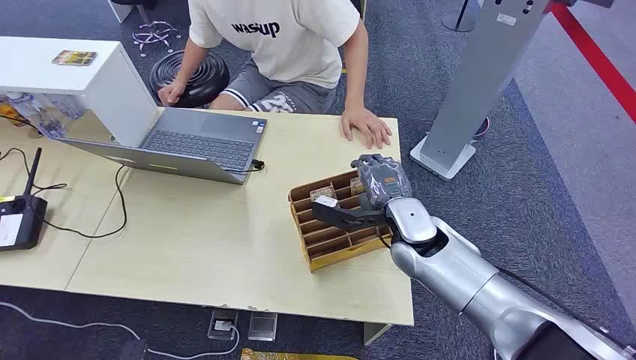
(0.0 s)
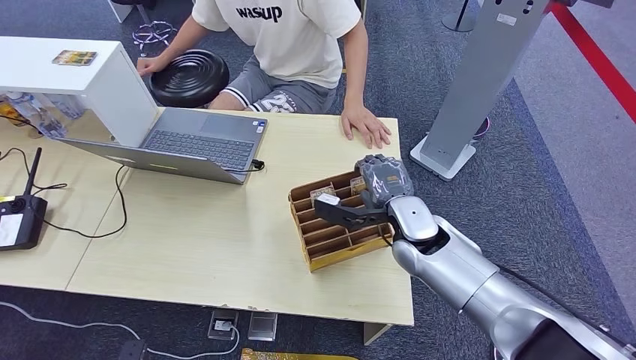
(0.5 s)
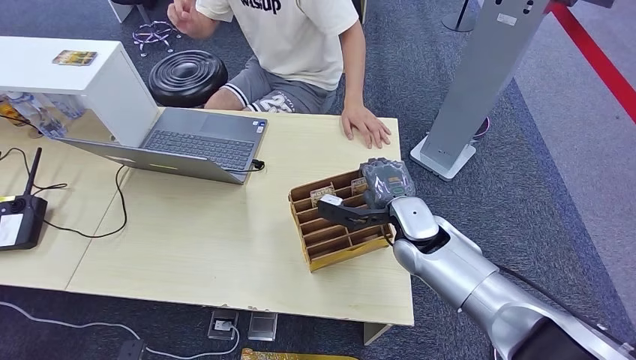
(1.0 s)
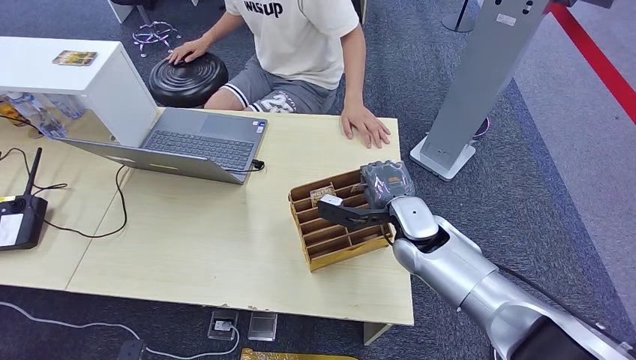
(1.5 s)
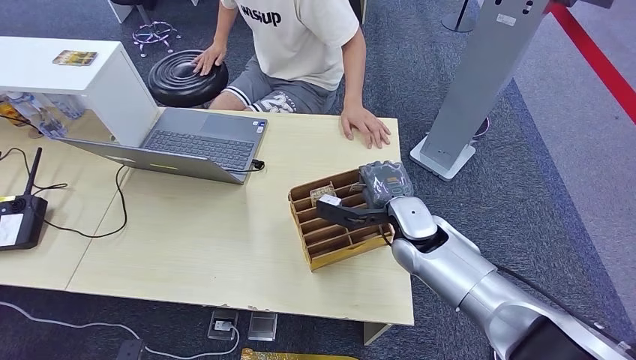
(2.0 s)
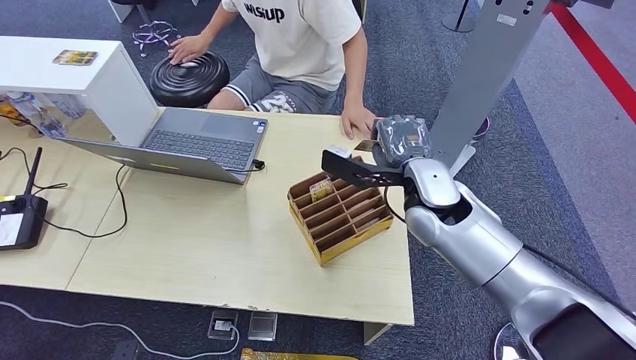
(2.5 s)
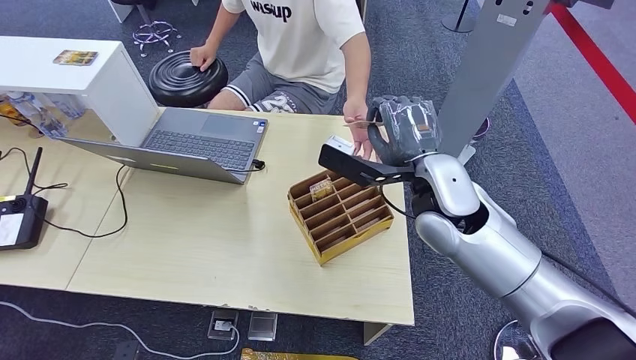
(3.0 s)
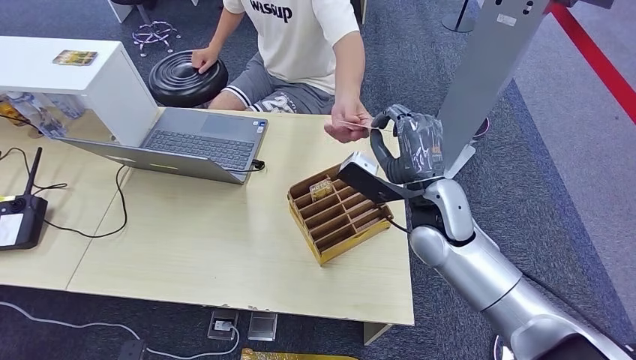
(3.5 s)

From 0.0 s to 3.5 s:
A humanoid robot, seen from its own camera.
Step, from 0.0 s to 2.0 s: Pick up the key card from the card box.
Step, from 2.5 s to 3.5 s: Hand the key card to the target.
From 2.0 s to 3.5 s: The right hand heads upward, covering some 5 cm.

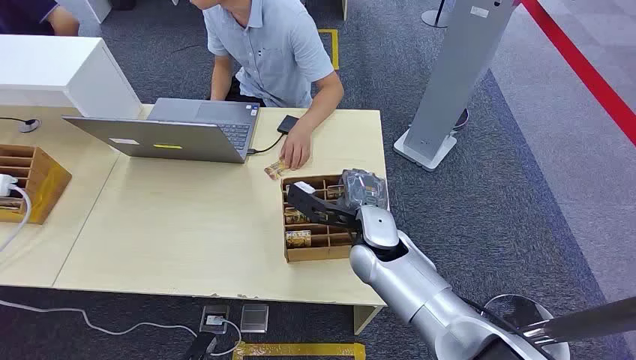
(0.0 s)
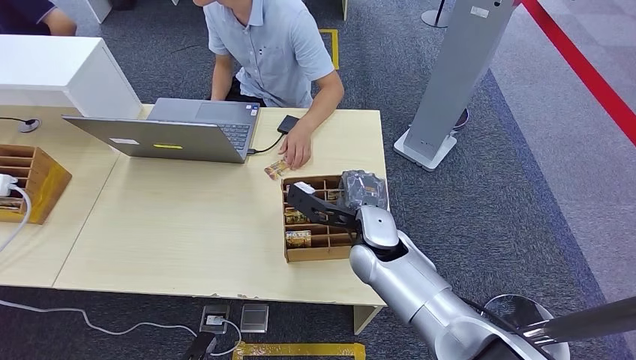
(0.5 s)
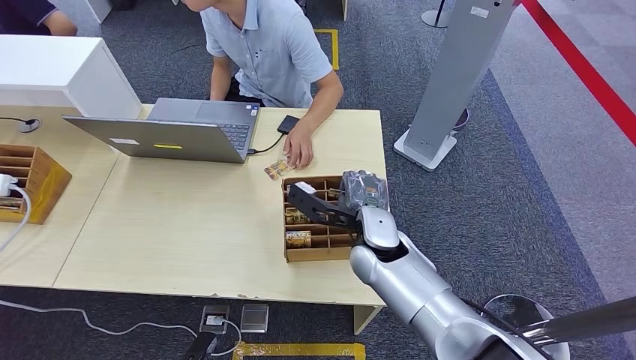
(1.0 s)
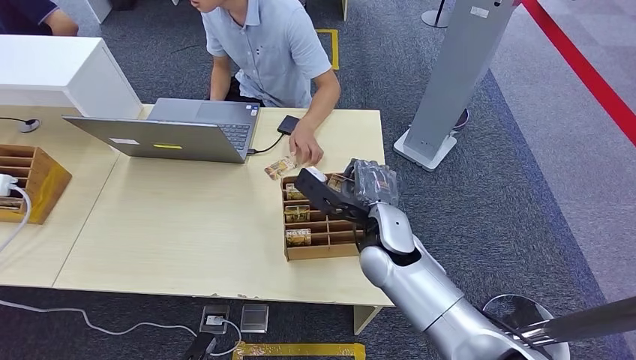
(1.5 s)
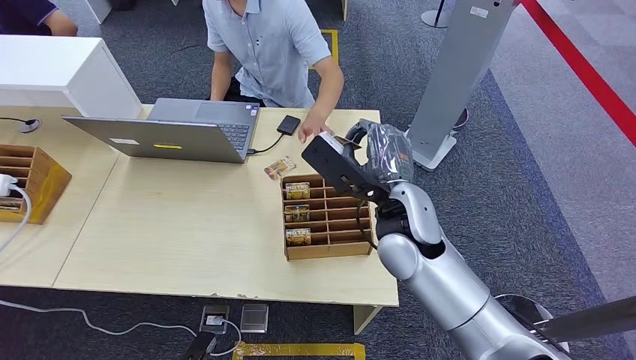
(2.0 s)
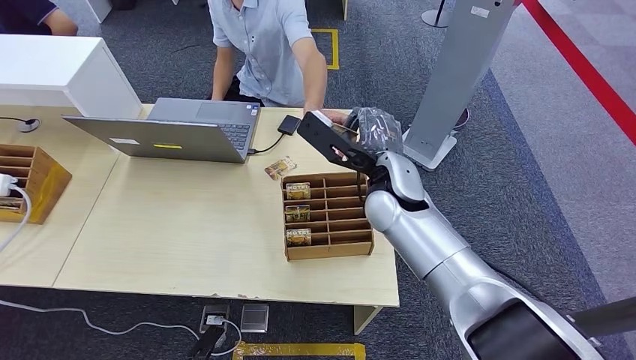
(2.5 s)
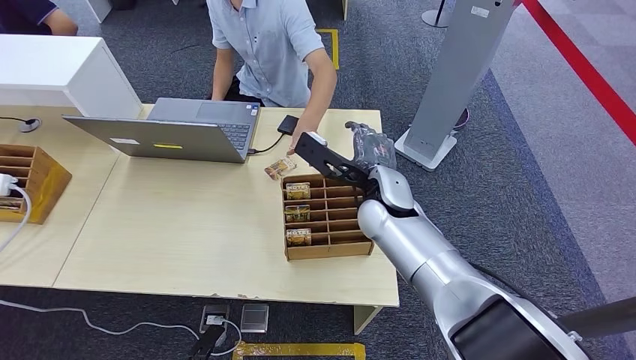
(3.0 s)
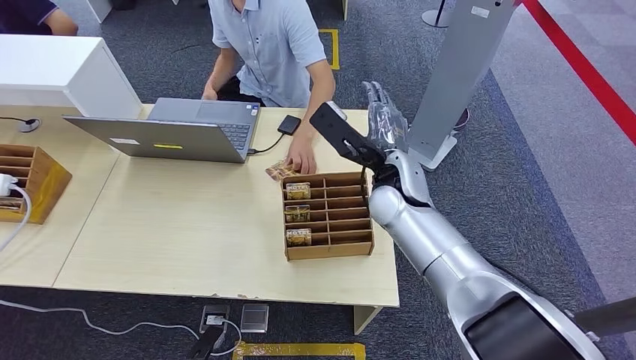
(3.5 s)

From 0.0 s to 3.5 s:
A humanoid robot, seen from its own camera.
Step, from 0.0 s to 1.5 s: Pick up the key card from the card box.
Step, from 2.5 s to 3.5 s: Hand the key card to the target.
From 2.0 s to 3.5 s: The right hand heads forward, covering roughly 5 cm.

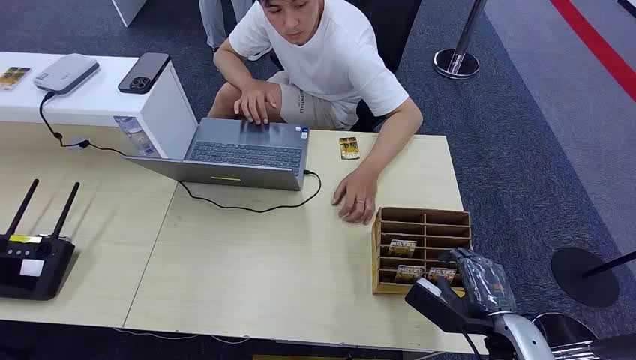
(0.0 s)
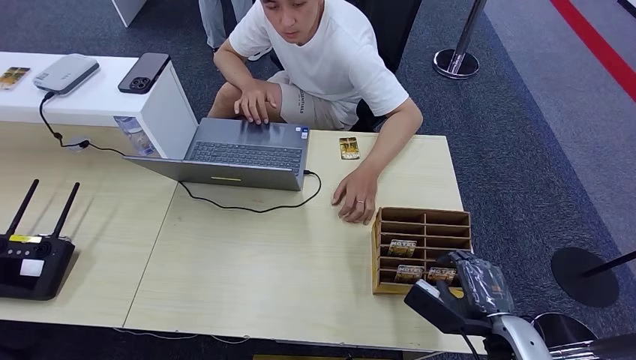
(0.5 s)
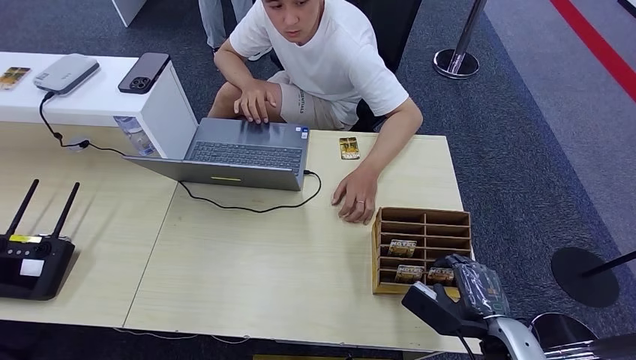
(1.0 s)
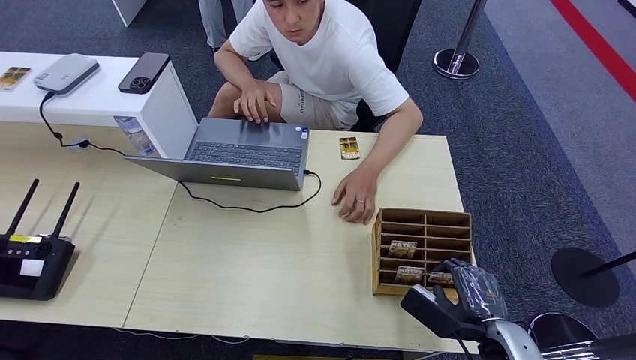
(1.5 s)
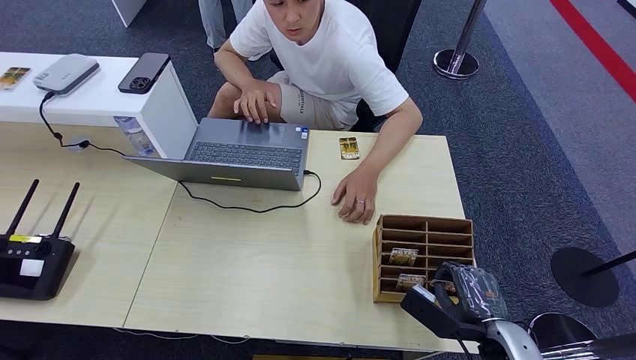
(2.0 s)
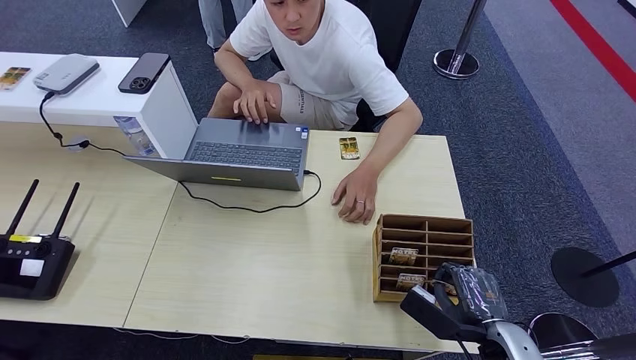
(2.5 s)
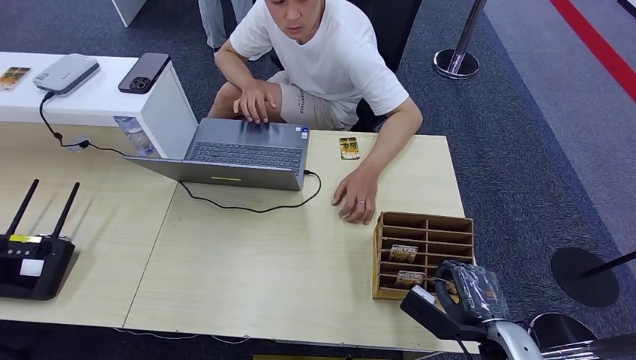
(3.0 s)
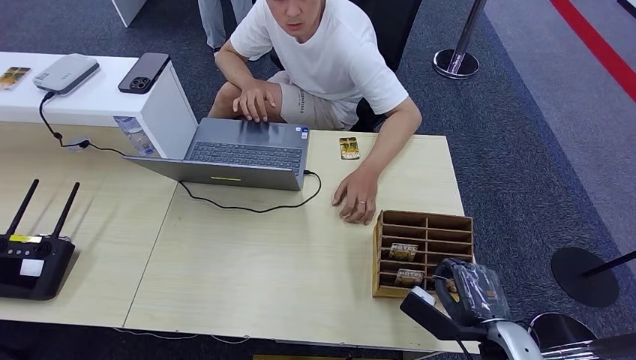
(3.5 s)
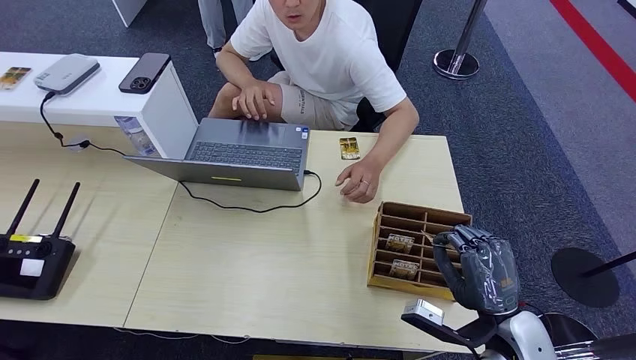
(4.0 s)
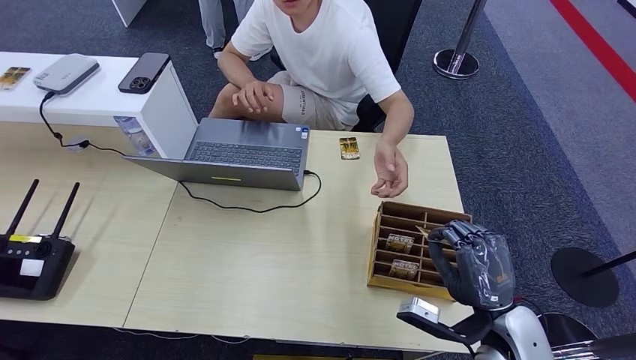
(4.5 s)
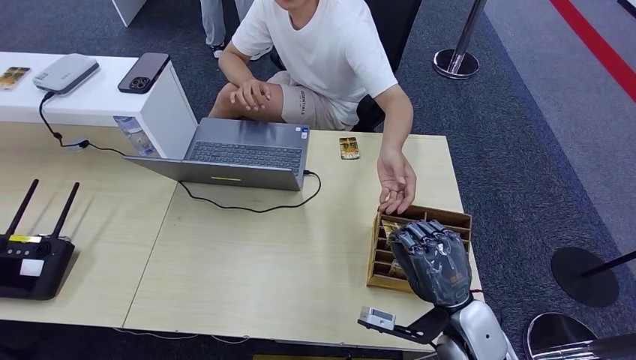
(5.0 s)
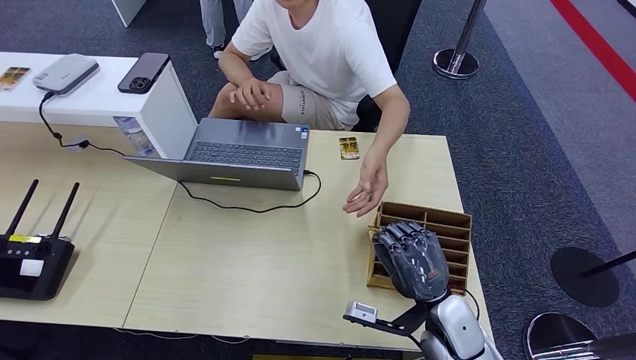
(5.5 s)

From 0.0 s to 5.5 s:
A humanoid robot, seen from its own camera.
Step, from 0.0 s to 4.0 s: Pick up the key card from the card box.
Step, from 4.5 s to 5.5 s: Hand the key card to the target.
From 2.0 s to 3.5 s: The hands make only small movements.
From 3.5 s to 5.5 s: The right hand shifts some 10 cm to the left and forward.
